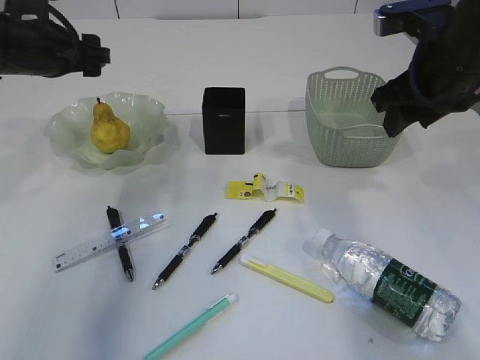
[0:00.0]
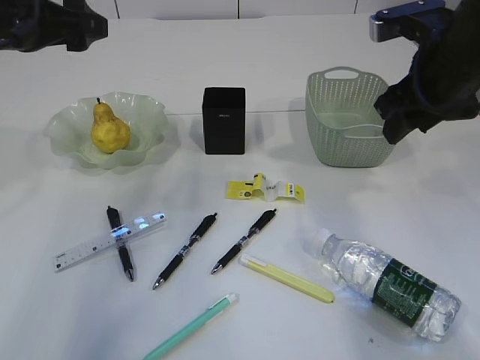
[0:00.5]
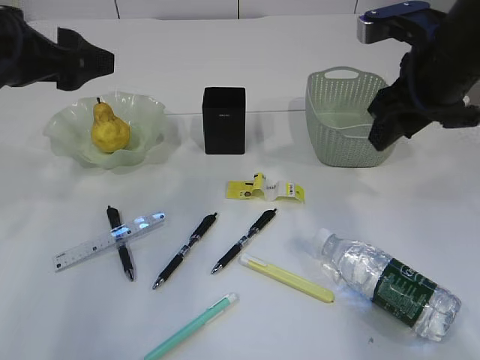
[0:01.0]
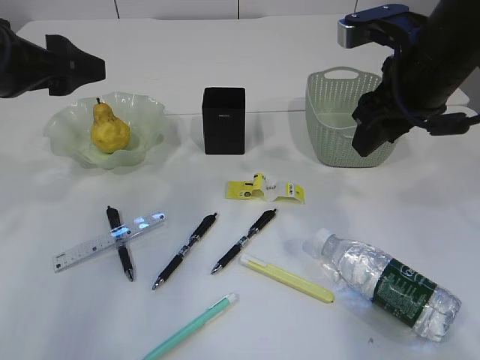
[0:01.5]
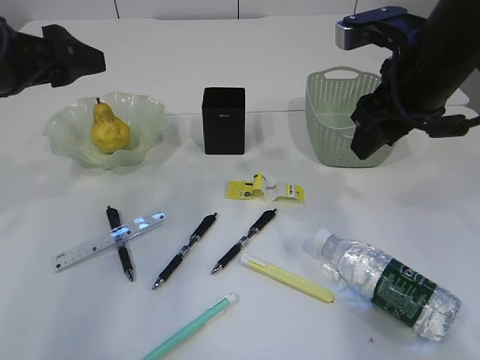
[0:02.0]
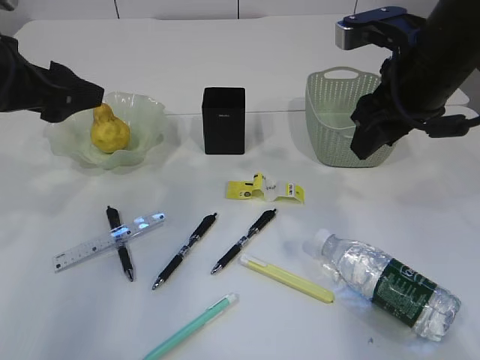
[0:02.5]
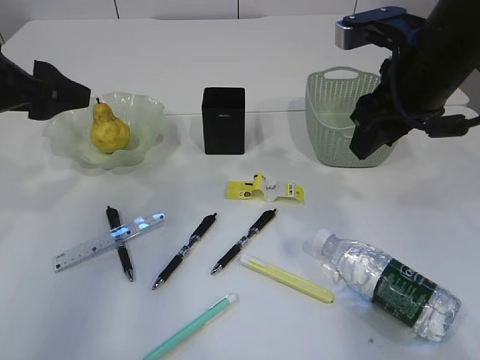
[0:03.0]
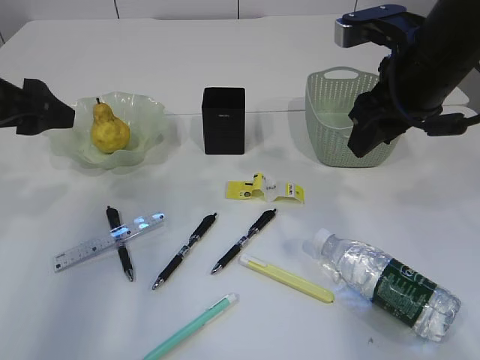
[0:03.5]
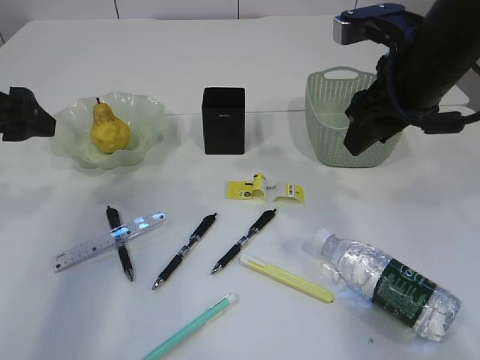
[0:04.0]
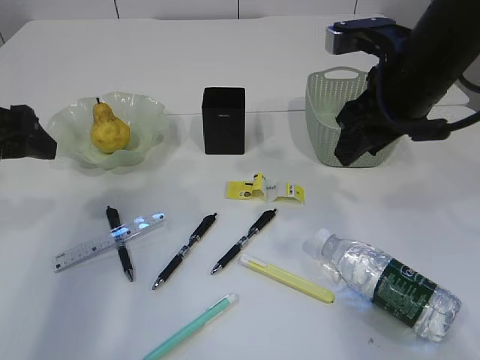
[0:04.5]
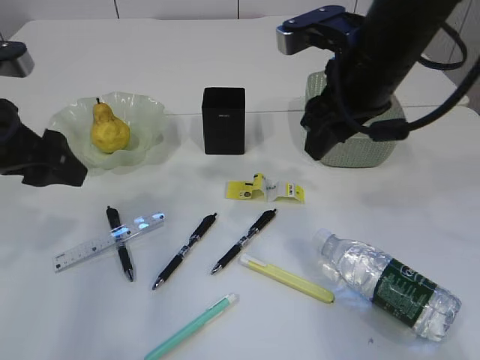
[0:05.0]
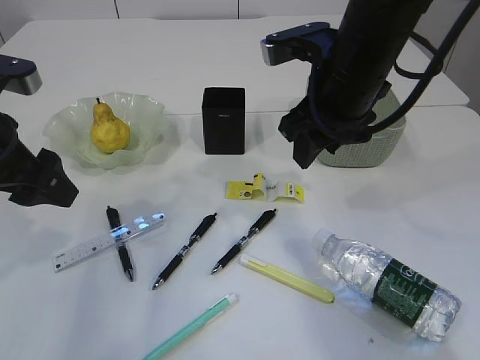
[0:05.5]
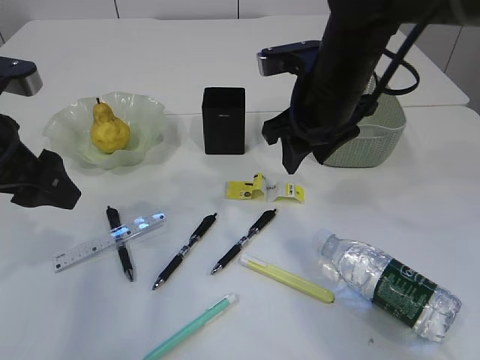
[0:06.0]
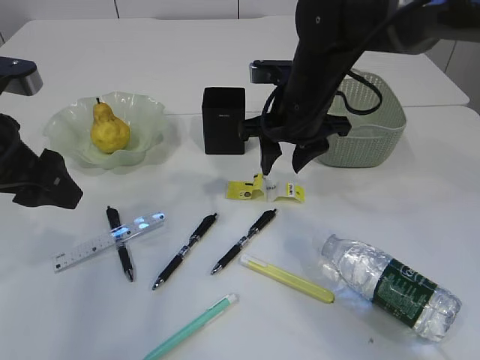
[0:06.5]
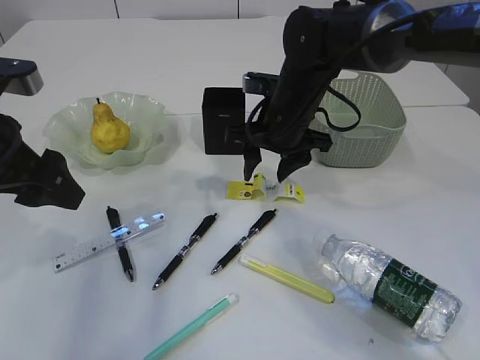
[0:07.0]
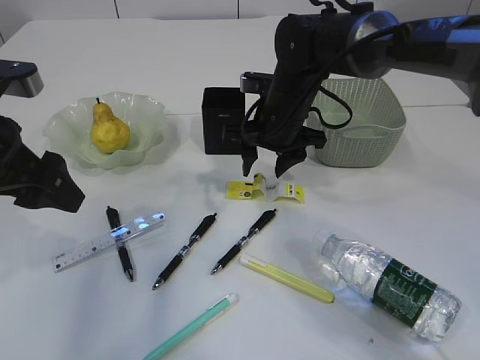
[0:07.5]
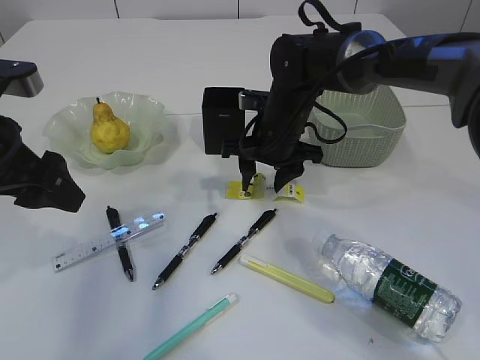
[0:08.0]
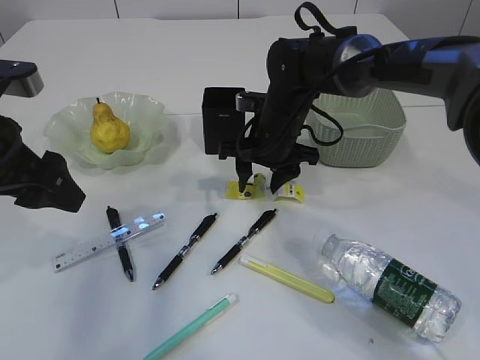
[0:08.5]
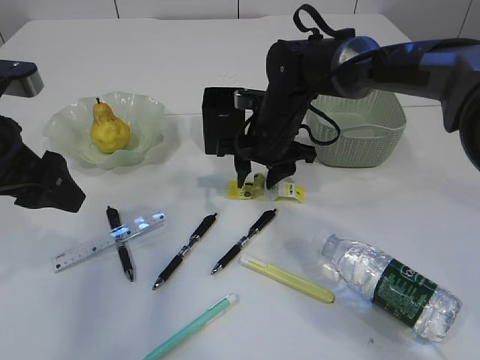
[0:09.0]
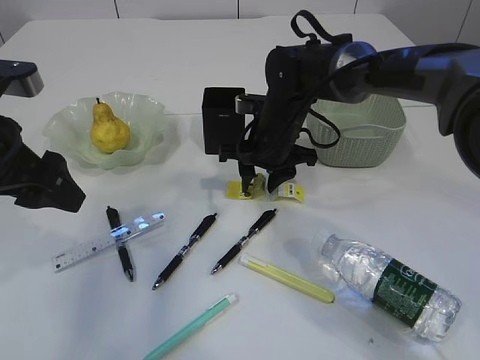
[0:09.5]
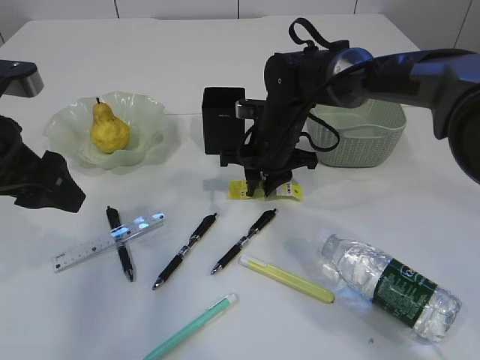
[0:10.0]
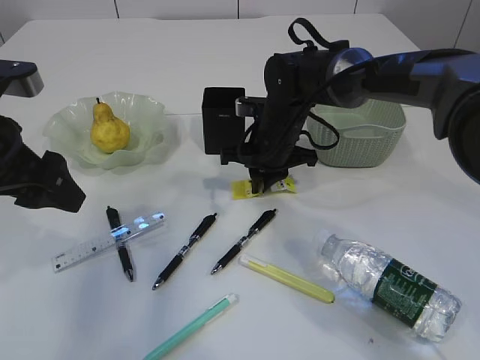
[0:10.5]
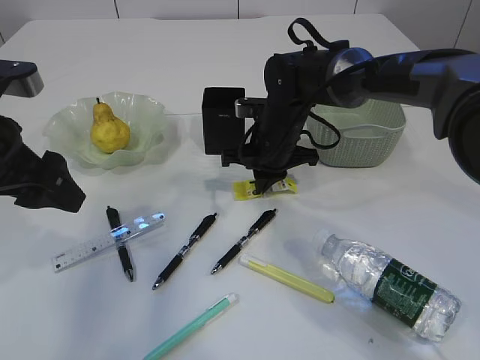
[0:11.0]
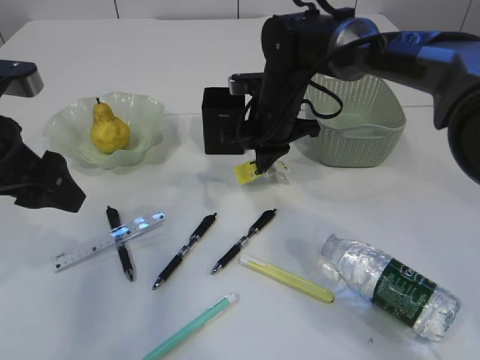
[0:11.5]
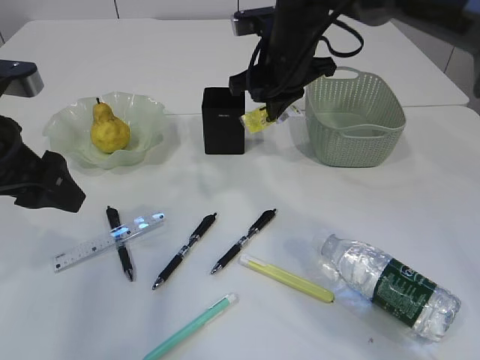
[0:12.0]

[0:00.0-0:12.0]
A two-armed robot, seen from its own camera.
Step, 0:02.0 to 0:11.5: Pick up the plastic.
0:00.0 to 0:02.0: The left gripper travels backward by roughly 10 cm.
0:04.0 to 0:06.0: The left gripper ends up about 5 cm from where it was, while the right gripper moves to the left, some 5 cm.
0:06.0 to 0:08.0: The right gripper is displaced downward and forward by about 10 cm.
0:08.0 to 0:10.0: The right gripper closes.
0:10.0 to 0:12.0: The right gripper travels upward by some 10 cm.

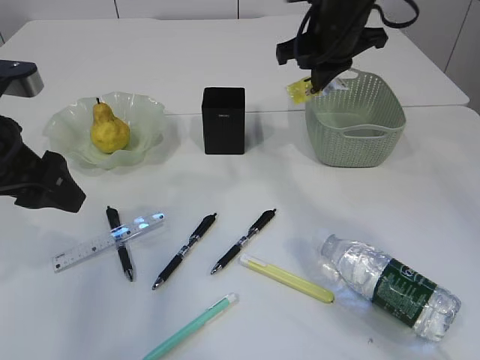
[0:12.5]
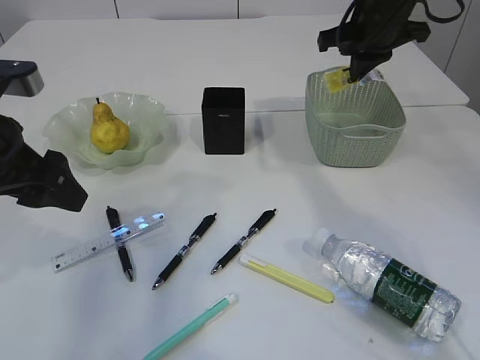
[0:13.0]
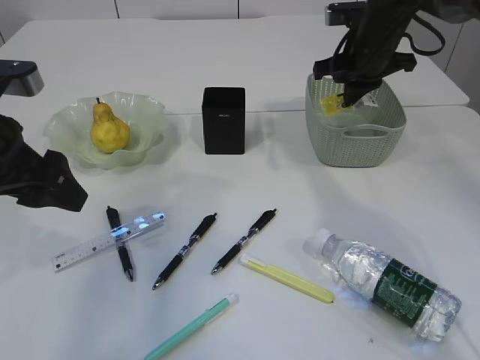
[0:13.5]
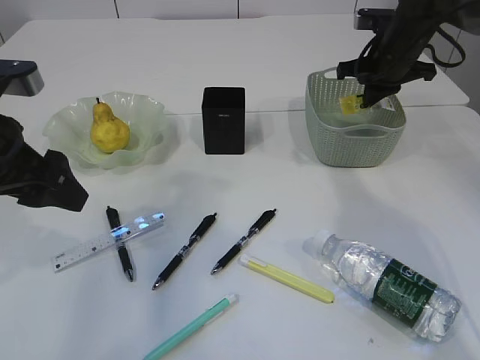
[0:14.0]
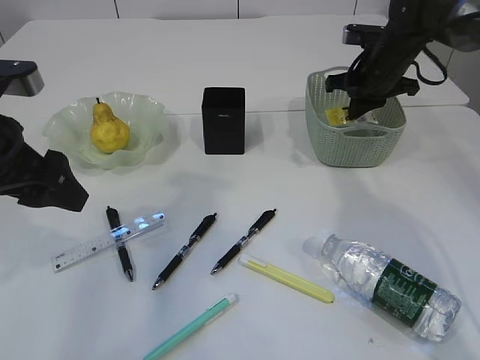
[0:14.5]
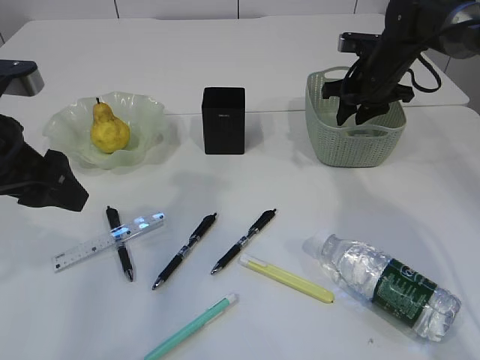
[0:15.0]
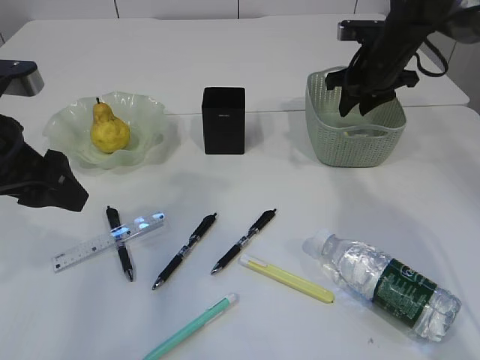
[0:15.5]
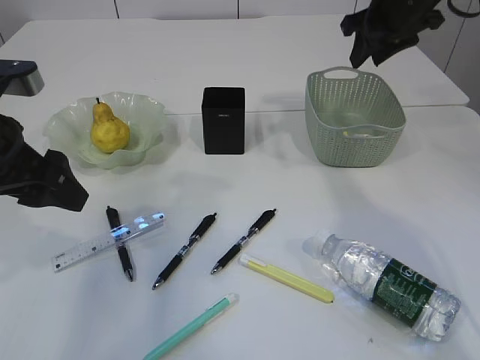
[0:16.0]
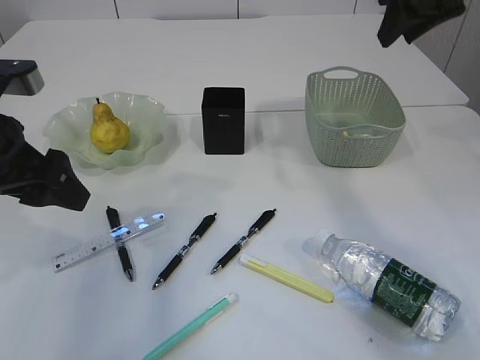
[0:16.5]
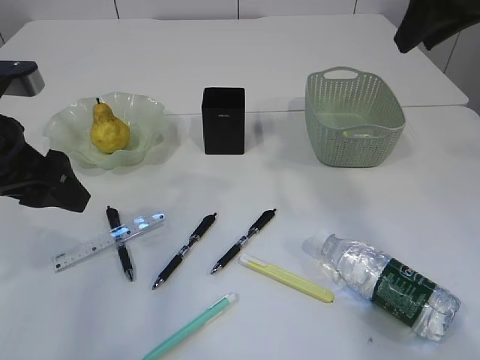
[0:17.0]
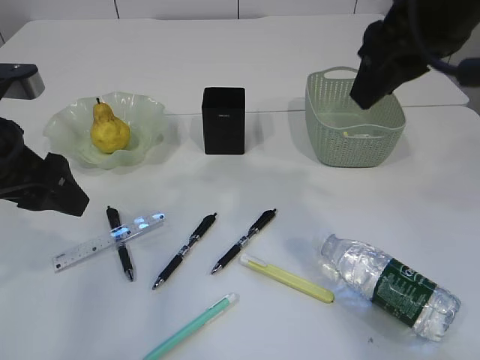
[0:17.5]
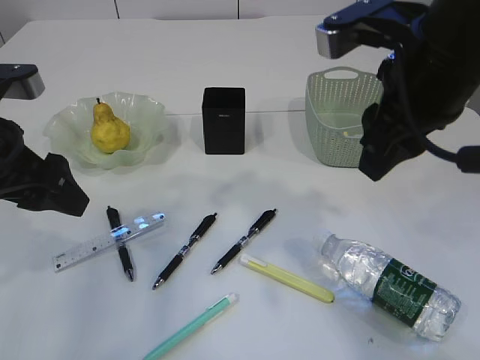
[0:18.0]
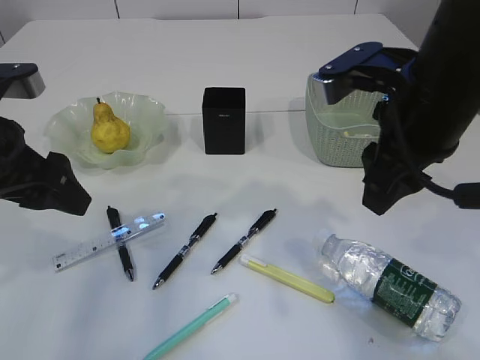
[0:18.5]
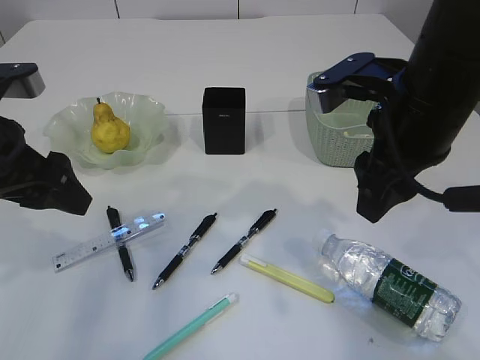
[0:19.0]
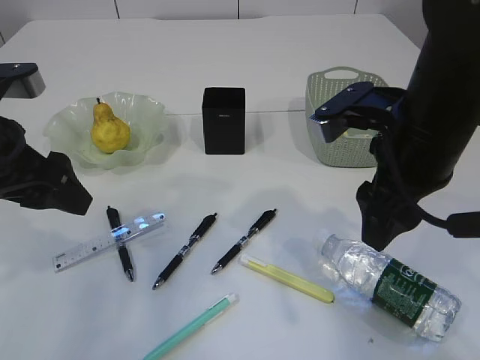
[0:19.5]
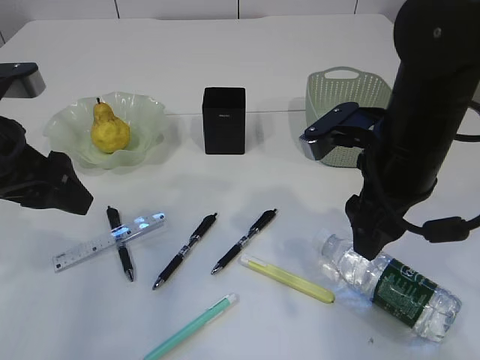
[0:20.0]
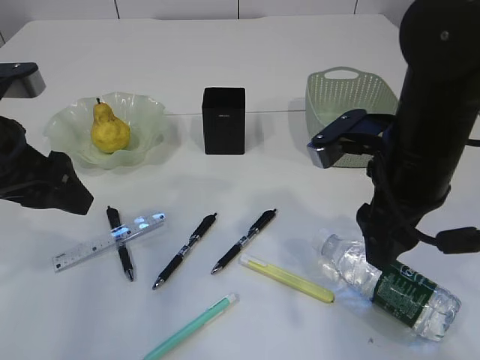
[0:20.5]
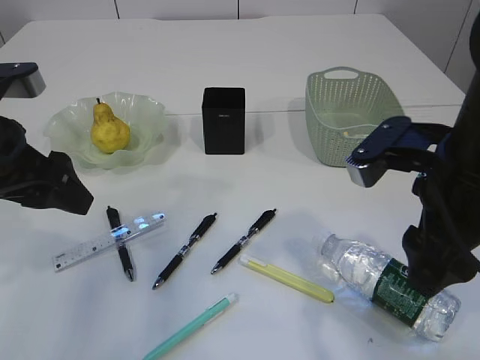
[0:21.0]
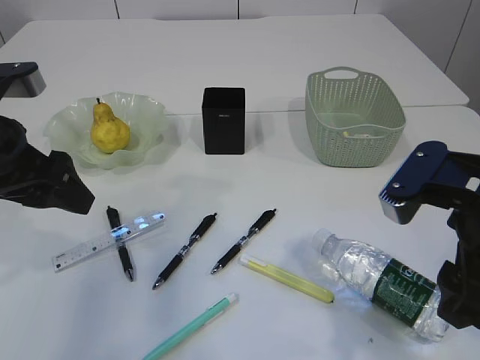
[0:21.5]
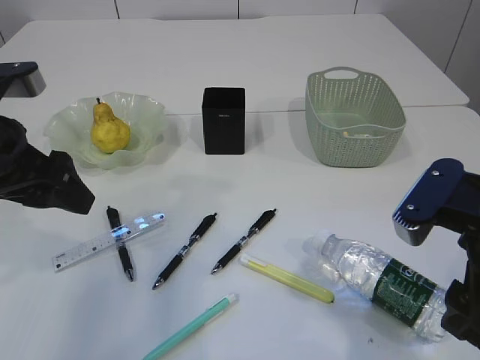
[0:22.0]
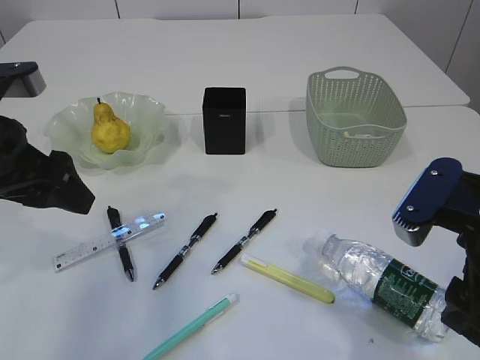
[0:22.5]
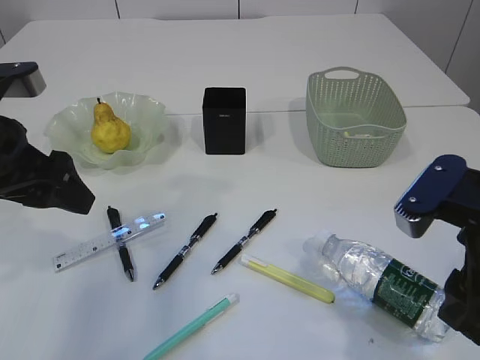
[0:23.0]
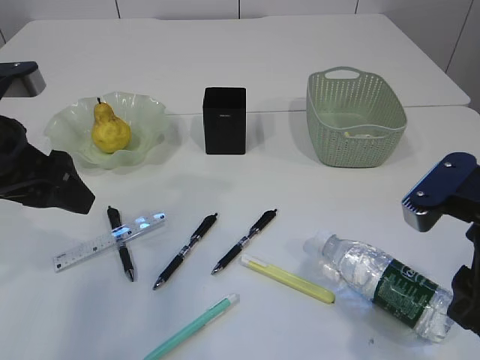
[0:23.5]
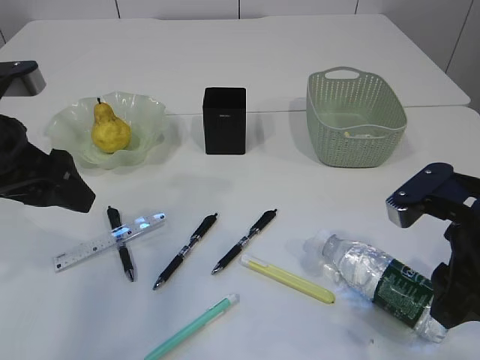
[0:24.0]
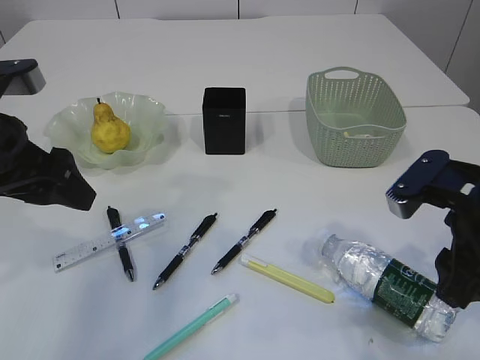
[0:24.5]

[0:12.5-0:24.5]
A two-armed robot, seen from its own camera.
Step, 0:12.5 to 0:15.5: Place the plastic in the basket.
0:12.5 to 0:14.5: The right gripper travels downward, to the right and forward by approximately 15 cm.
0:14.5 to 0:16.5: The right gripper moves upward and backward, about 20 cm, and opens.
0:16.5 to 0:18.5: The right gripper heads backward, to the left and downward, covering about 20 cm.
0:18.5 to 0:20.5: The right gripper moves downward, approximately 5 cm, and opens its fingers.
0:20.5 to 0:22.5: The right gripper moves backward, approximately 10 cm.
0:22.5 to 0:24.5: The right gripper moves some 5 cm.

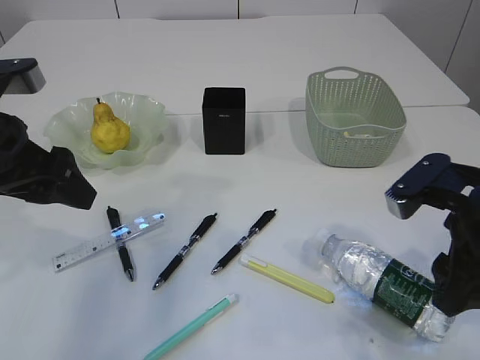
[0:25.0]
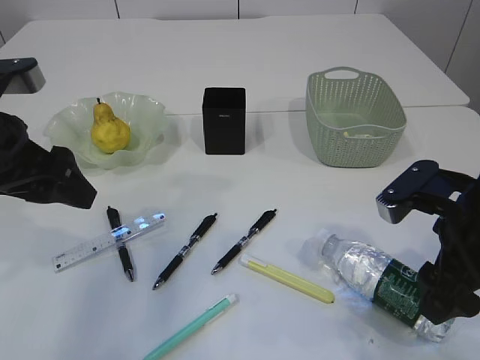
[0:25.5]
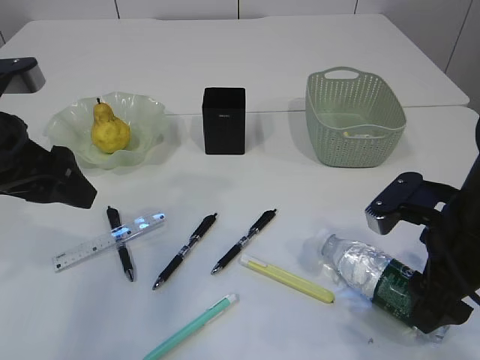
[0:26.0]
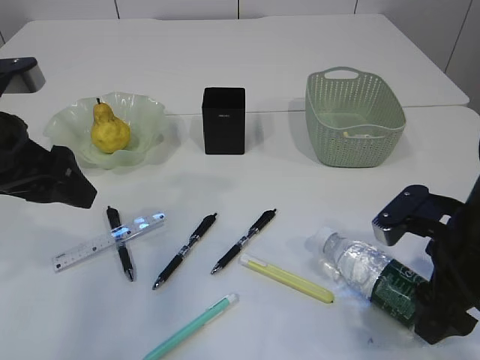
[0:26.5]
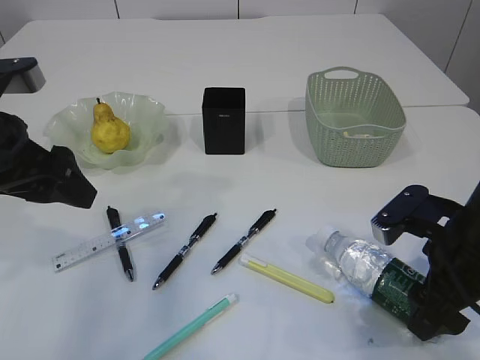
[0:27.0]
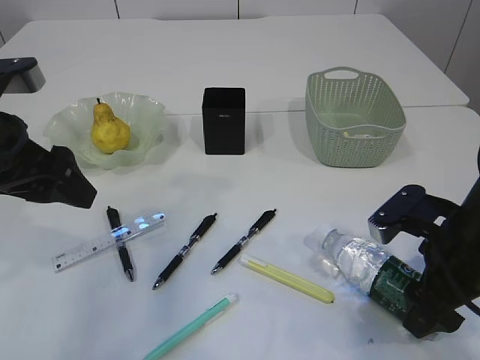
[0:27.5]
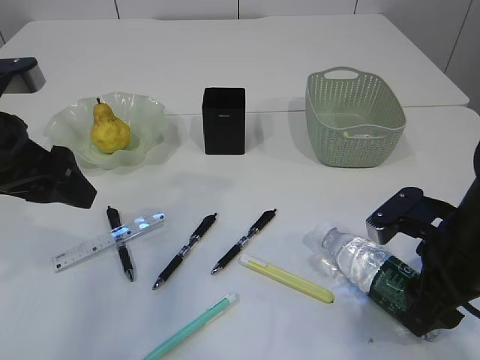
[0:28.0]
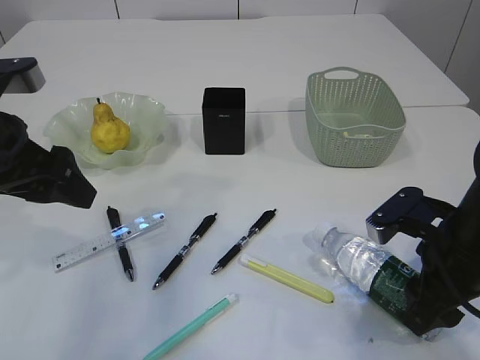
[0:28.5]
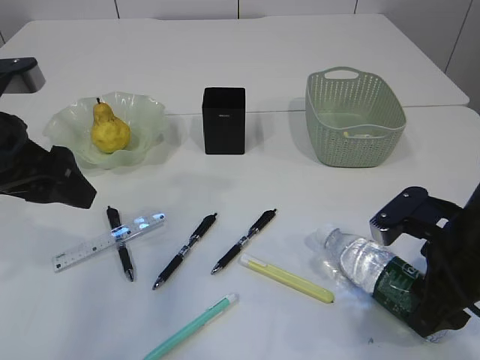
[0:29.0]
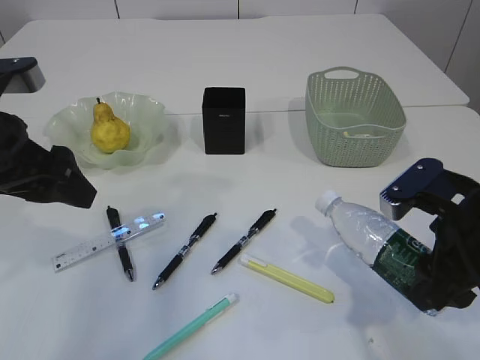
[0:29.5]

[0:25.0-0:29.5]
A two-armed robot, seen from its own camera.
0:25.0 to 0:27.0: The right gripper moves downward, some 5 cm.
0:27.0 to 0:29.5: The grippers stay close to where they were, moving slightly.
